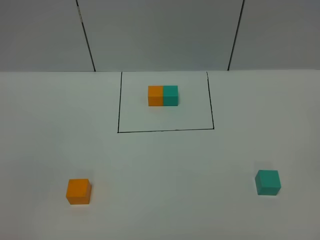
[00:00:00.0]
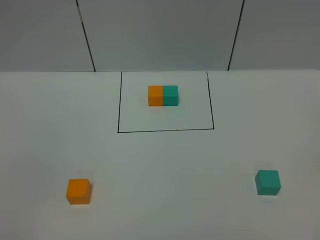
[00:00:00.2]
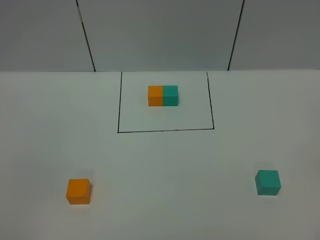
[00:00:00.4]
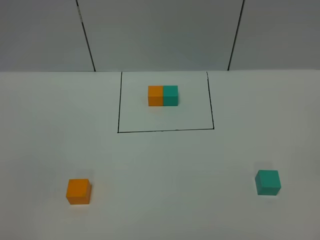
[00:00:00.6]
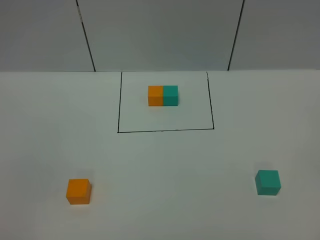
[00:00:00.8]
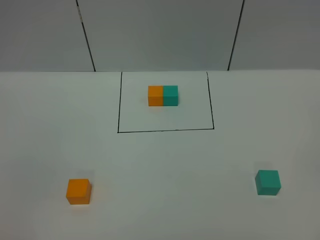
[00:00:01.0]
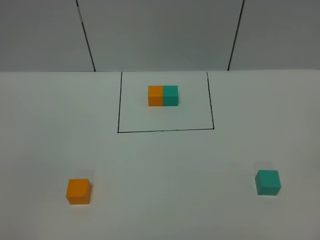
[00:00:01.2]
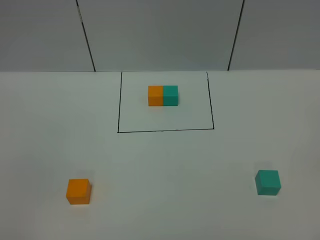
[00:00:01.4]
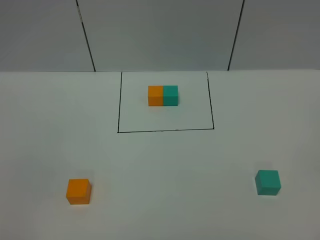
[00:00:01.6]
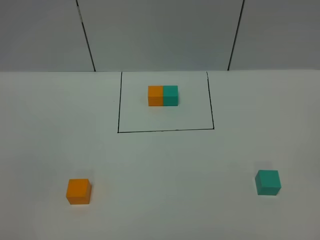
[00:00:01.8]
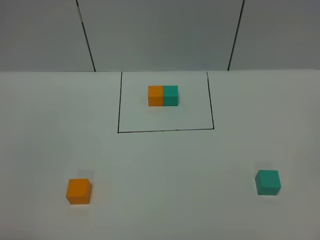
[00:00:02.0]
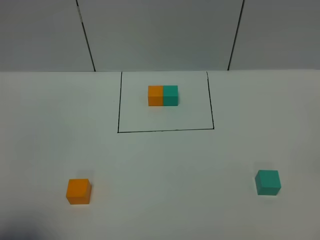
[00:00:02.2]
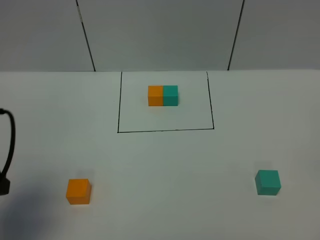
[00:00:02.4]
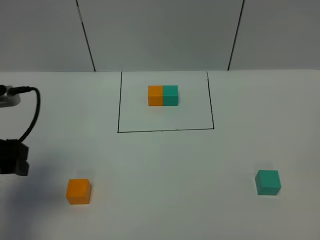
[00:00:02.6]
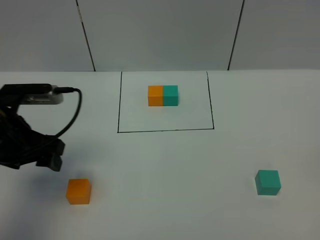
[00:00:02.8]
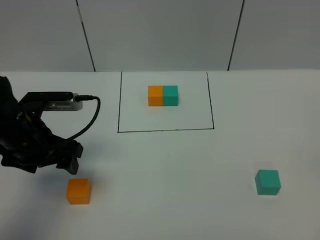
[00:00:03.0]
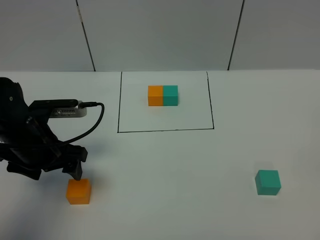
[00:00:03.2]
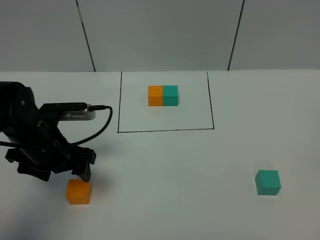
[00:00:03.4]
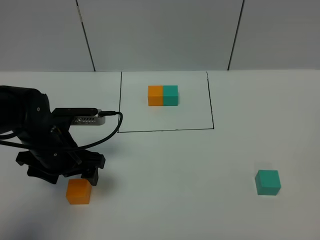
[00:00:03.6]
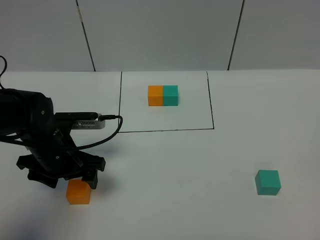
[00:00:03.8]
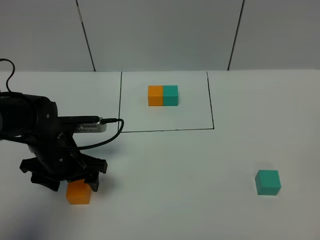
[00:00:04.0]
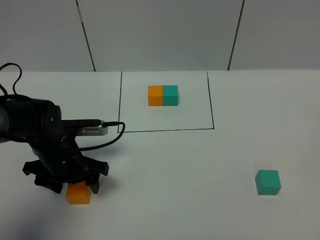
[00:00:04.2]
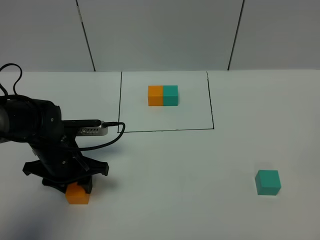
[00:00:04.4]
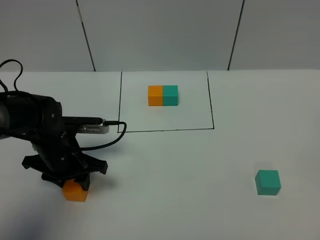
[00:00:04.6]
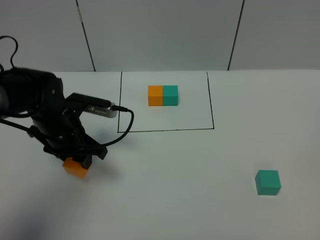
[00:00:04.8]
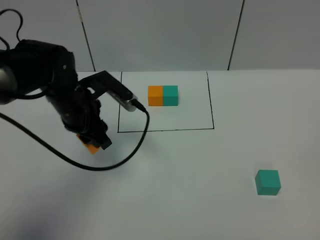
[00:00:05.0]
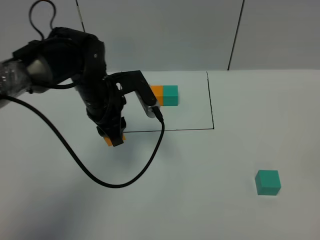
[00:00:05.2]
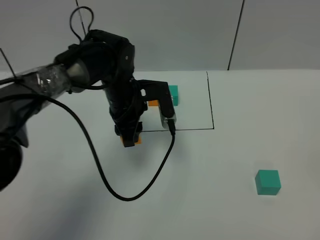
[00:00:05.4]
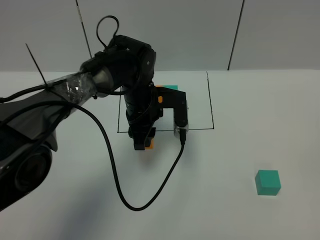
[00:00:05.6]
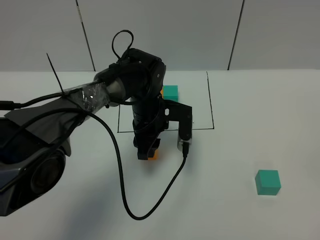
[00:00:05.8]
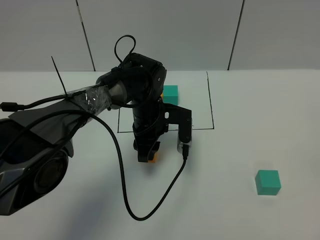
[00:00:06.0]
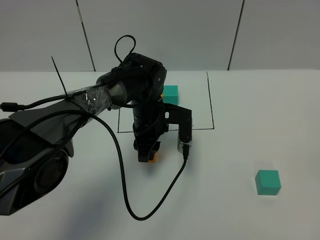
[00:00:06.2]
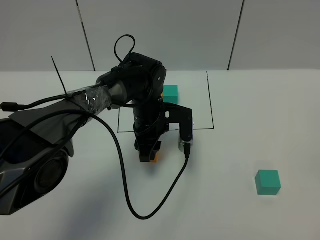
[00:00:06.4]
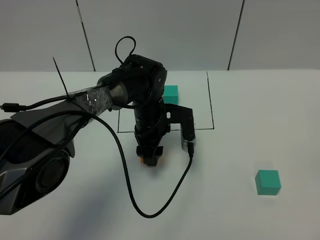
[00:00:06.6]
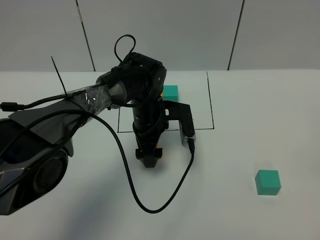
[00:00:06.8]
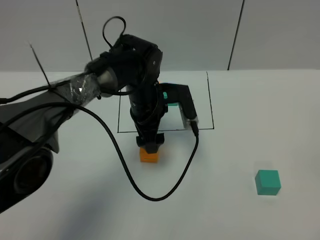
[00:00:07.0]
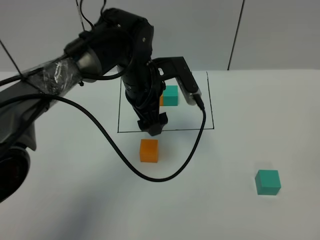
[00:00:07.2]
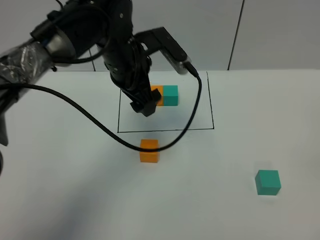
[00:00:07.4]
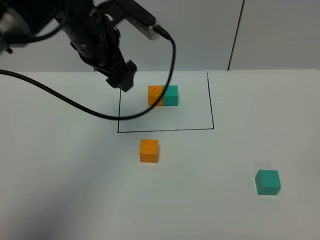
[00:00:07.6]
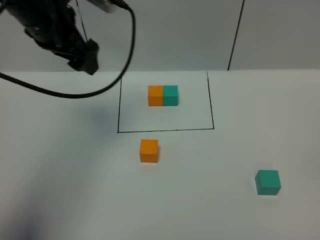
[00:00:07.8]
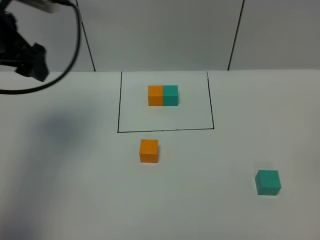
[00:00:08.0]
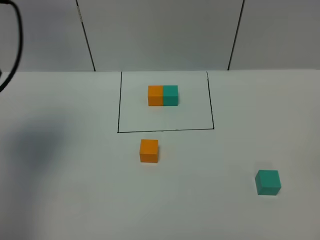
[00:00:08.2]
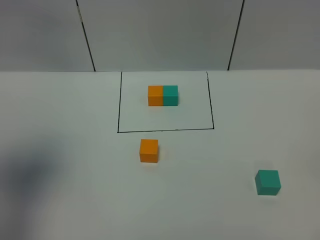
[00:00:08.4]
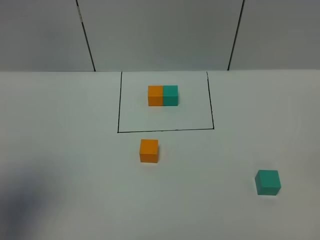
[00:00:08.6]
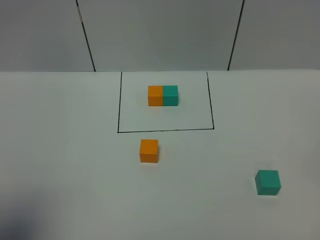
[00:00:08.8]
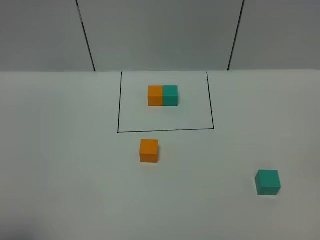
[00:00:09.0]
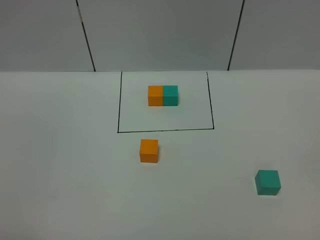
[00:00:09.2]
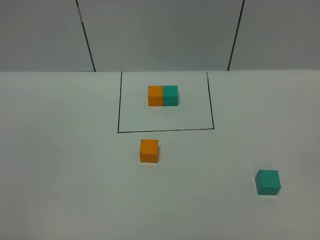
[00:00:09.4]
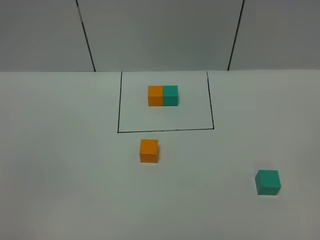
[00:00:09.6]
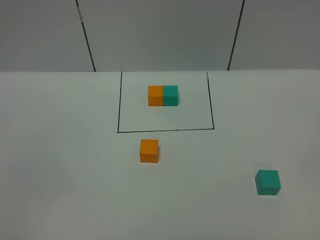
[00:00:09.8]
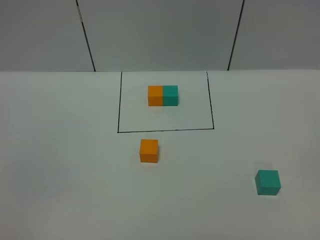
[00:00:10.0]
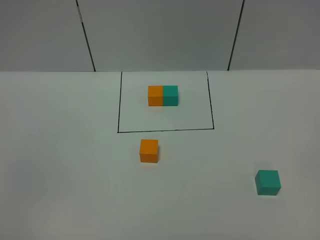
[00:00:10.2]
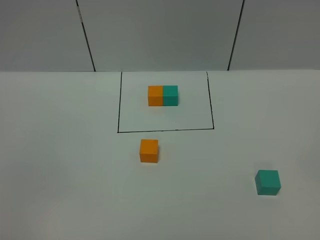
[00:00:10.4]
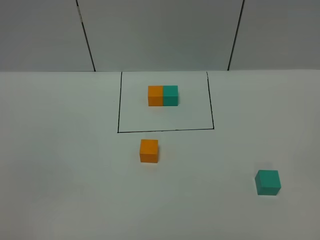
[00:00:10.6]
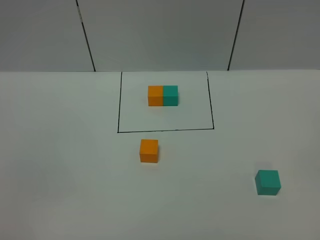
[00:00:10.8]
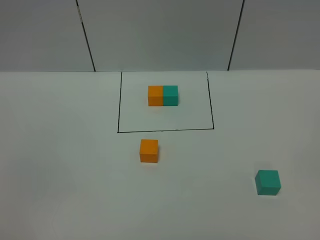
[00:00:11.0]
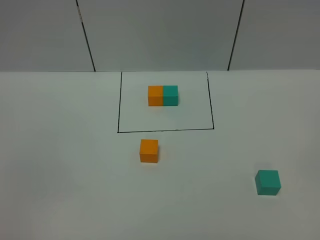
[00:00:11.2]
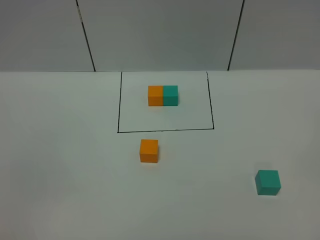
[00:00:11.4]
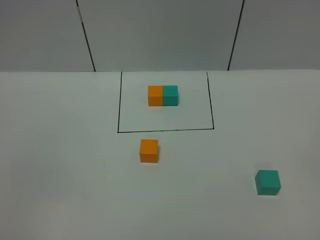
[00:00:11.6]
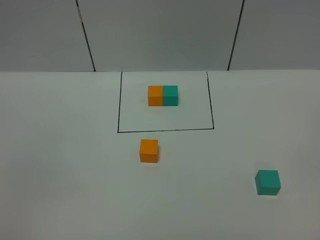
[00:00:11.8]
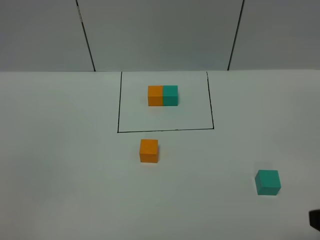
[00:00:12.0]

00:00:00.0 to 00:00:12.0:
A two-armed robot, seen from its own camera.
Task of the whole recording: According to the building block template in front, assemble the scattered blocks together.
Step, 00:00:02.4 to 00:00:07.2: Put the orange cube in the center of the table.
00:00:00.0 to 00:00:01.6: The two grippers keep their place.
00:00:01.6 to 00:00:03.0: The left gripper heads forward, covering about 30 cm.
00:00:03.0 to 00:00:04.4: The left gripper is displaced downward by some 10 cm, and closes.
00:00:04.4 to 00:00:06.0: The left gripper heads to the right and forward, covering about 20 cm.
00:00:06.0 to 00:00:07.6: The left gripper is displaced upward and to the left by roughly 20 cm, and opens.
00:00:07.6 to 00:00:09.0: The left gripper moves backward and to the left, about 40 cm.

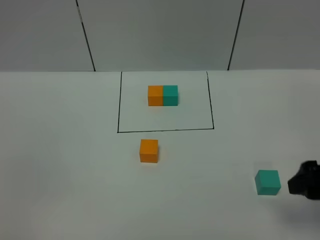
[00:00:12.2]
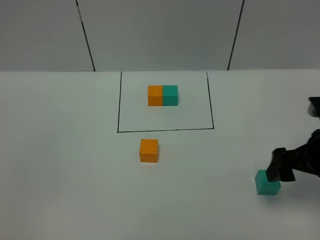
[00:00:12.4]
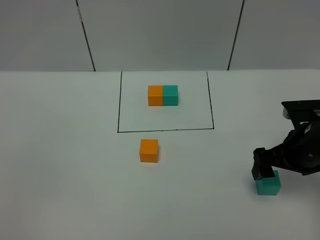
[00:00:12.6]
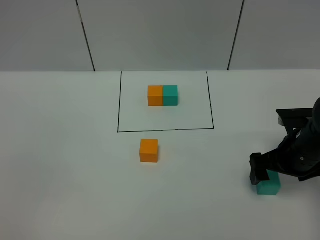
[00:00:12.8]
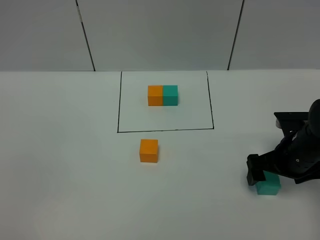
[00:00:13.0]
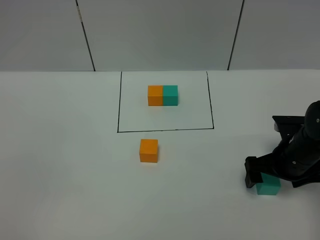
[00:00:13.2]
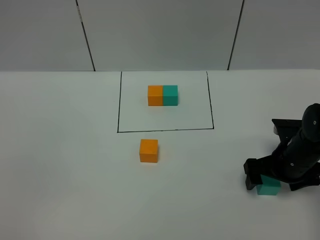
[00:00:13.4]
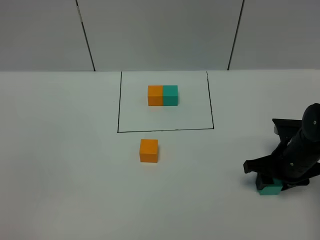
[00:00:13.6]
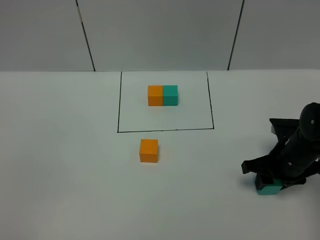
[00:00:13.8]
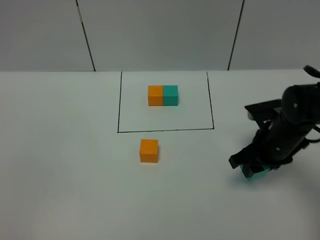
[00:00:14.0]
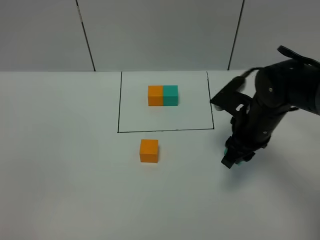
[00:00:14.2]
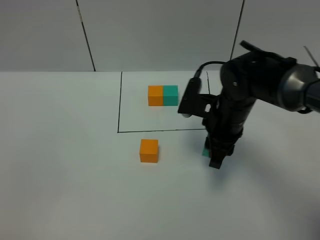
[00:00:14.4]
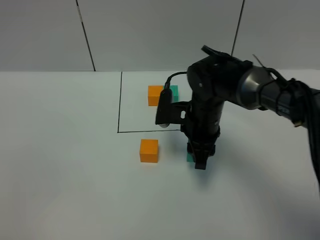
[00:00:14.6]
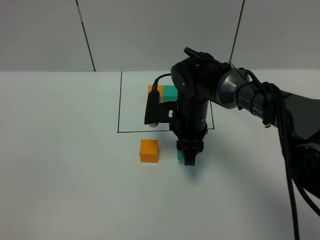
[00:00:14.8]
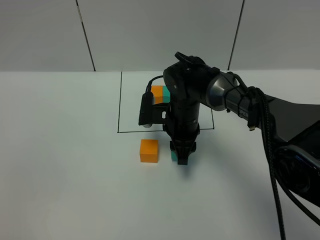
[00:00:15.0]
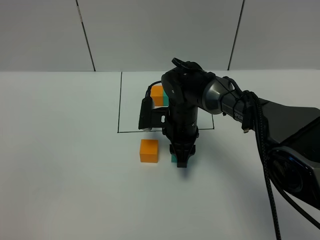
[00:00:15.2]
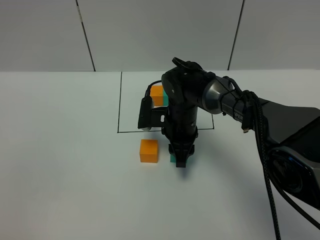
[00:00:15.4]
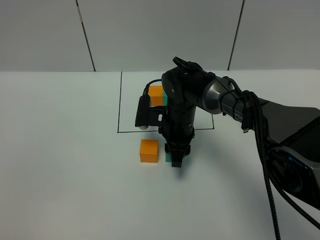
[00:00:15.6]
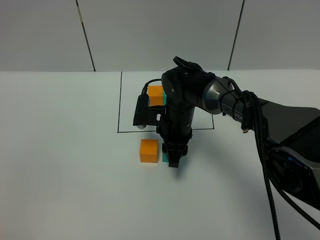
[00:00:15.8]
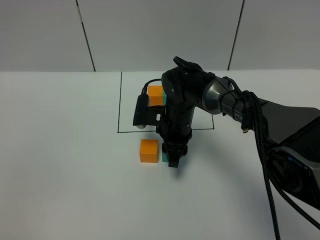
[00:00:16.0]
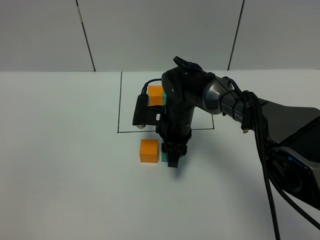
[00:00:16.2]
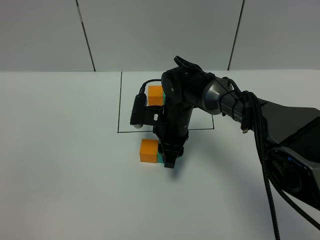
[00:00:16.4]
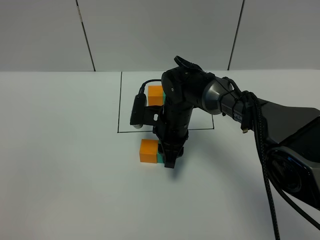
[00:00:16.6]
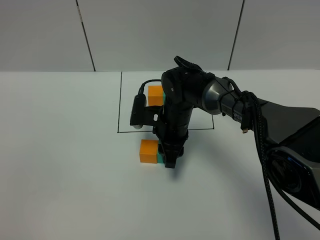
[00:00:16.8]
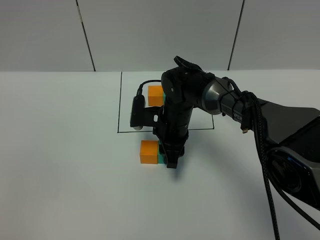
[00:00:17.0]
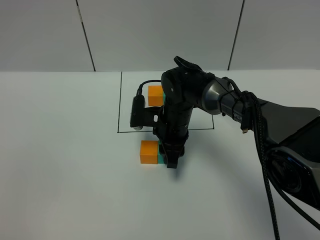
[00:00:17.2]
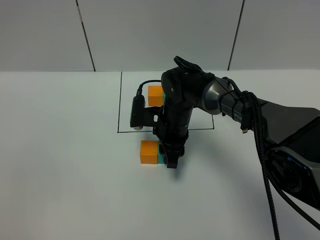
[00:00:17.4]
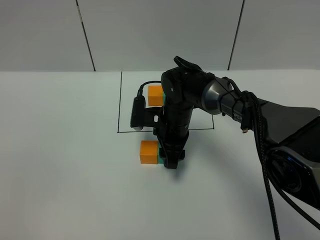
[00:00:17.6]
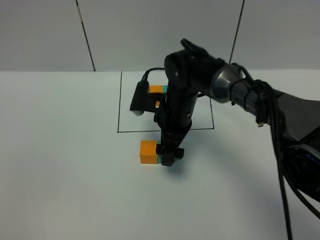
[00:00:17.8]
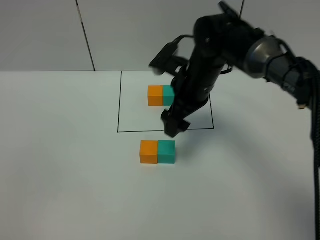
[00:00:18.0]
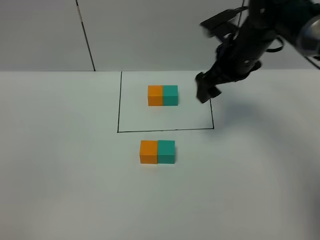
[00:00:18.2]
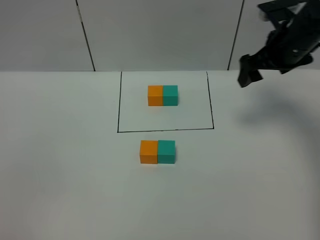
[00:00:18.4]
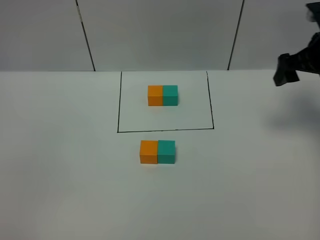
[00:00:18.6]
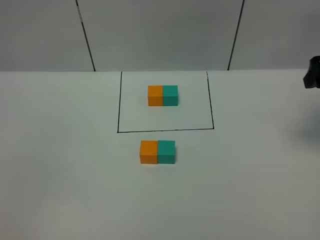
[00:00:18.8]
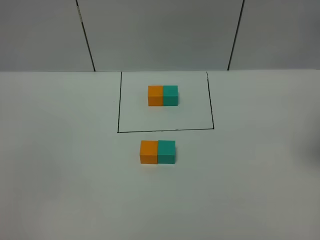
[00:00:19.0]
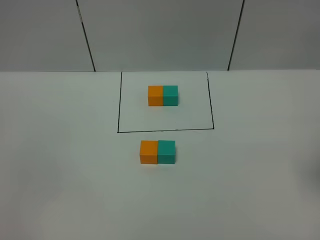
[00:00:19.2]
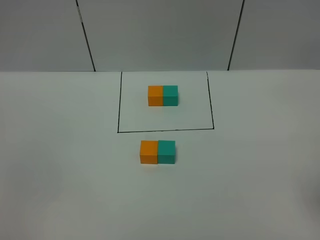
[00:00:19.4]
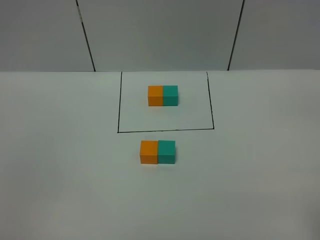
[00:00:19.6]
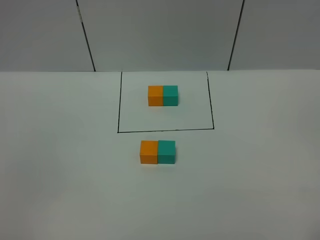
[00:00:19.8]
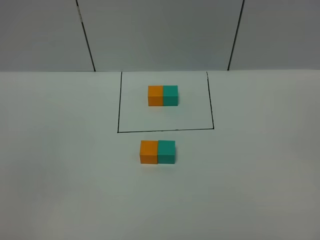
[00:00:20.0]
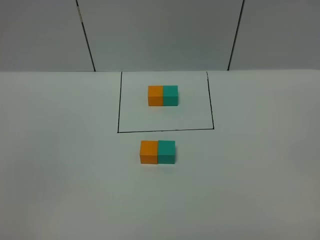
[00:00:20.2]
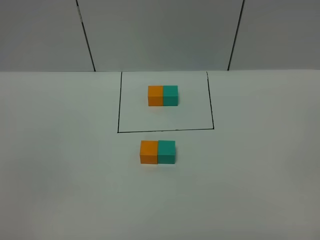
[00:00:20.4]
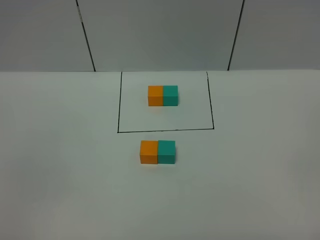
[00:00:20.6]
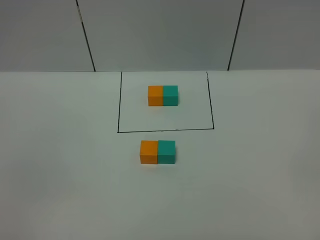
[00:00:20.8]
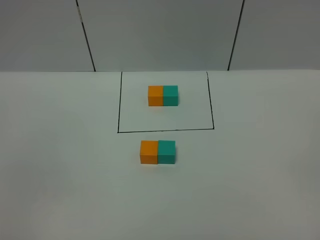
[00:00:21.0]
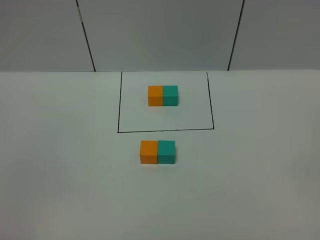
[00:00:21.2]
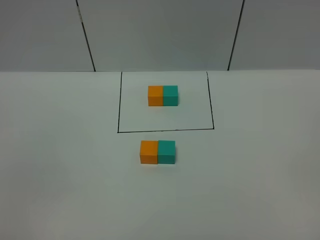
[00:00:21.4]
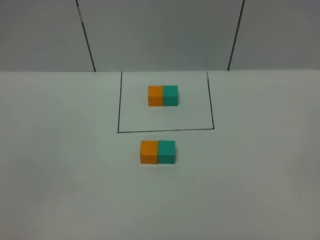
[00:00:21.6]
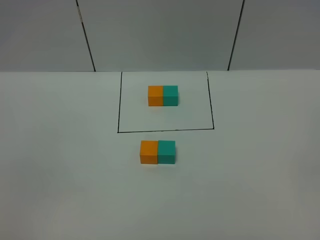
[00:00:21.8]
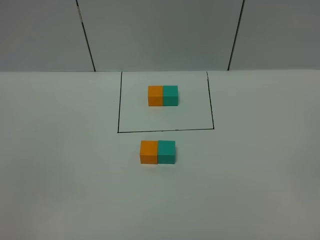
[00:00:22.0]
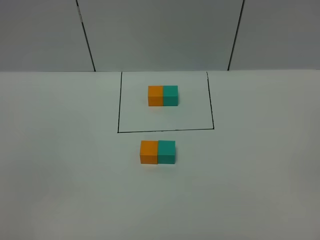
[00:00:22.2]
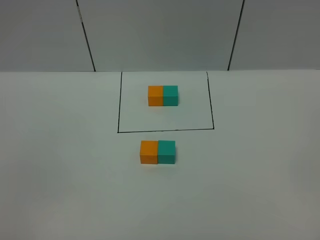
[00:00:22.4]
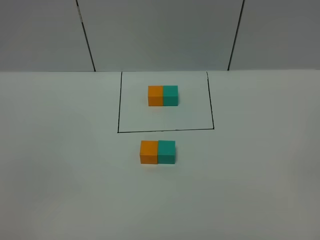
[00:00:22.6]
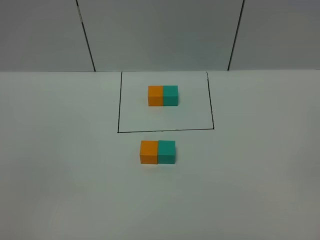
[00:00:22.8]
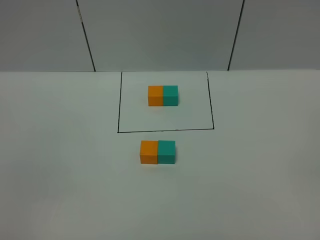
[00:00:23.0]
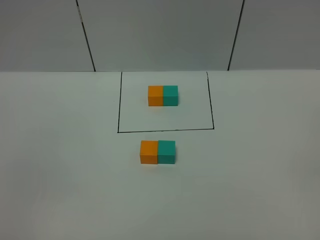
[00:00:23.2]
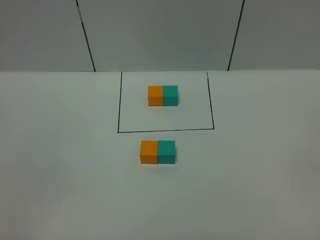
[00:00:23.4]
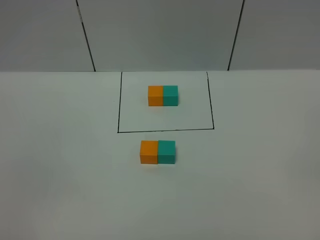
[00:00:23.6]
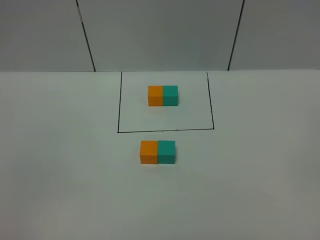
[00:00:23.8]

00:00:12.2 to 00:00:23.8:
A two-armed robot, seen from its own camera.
Task of the whole recording: According to the building block template in front, assemble the scattered blocks together.
Step, 00:00:12.2 to 00:00:17.8: Put the green cube on the right of the orange cube.
00:00:12.2 to 00:00:13.6: The right gripper is displaced downward and forward by approximately 20 cm, and closes.
00:00:13.6 to 00:00:15.0: The right gripper travels to the left and forward by some 25 cm.
00:00:15.0 to 00:00:16.6: The grippers make only small movements.
00:00:16.6 to 00:00:18.0: The right gripper goes some 15 cm upward and to the right, and opens its fingers.
00:00:18.0 to 00:00:19.4: The right gripper is displaced backward, to the right and upward by approximately 35 cm.
00:00:21.0 to 00:00:23.8: Both grippers stay about where they are.
